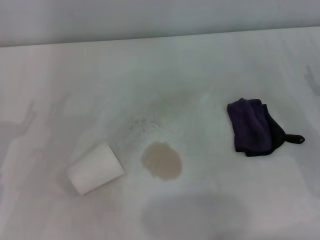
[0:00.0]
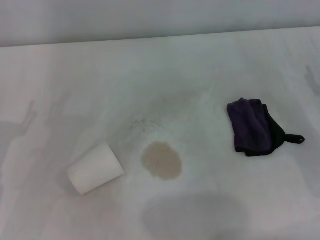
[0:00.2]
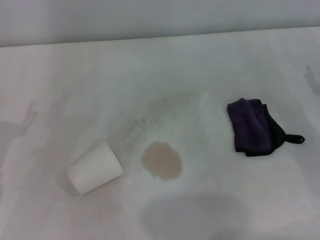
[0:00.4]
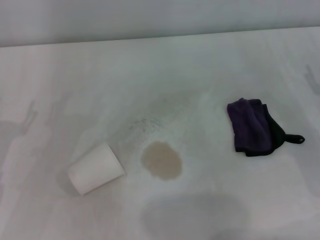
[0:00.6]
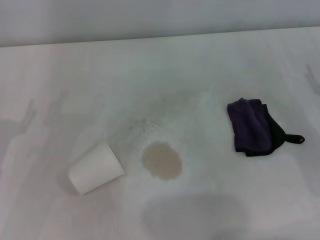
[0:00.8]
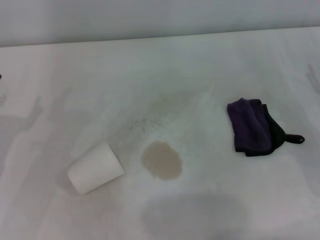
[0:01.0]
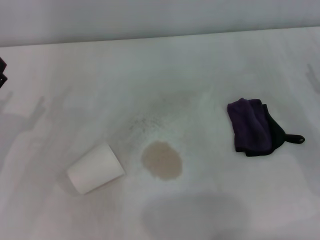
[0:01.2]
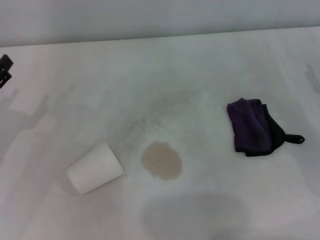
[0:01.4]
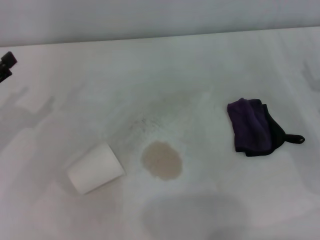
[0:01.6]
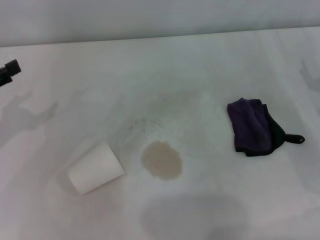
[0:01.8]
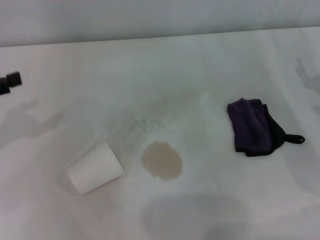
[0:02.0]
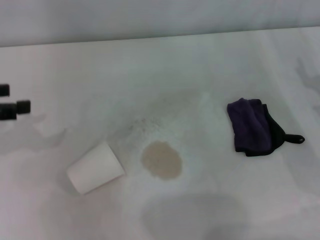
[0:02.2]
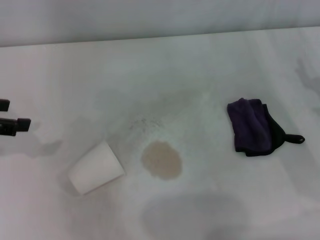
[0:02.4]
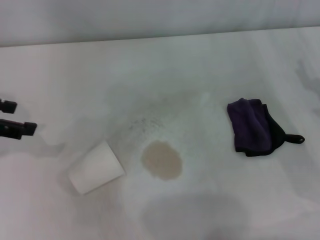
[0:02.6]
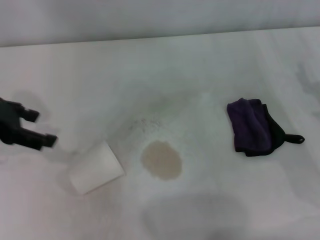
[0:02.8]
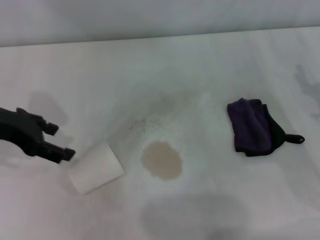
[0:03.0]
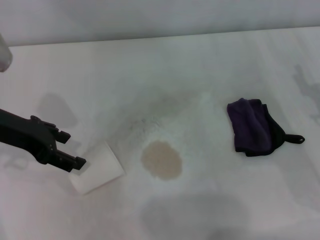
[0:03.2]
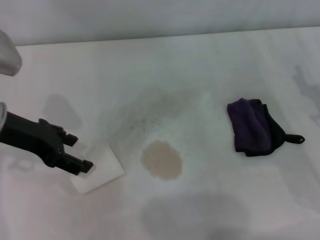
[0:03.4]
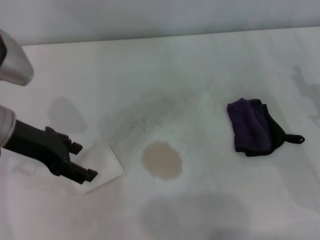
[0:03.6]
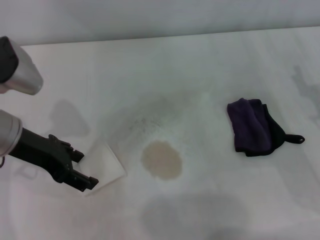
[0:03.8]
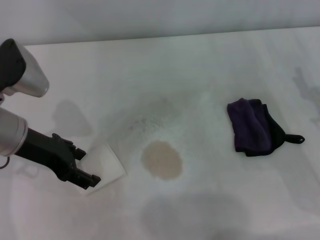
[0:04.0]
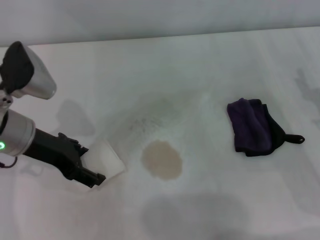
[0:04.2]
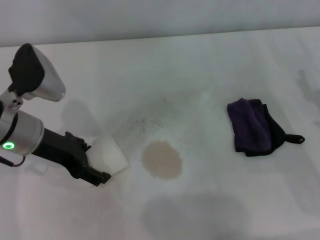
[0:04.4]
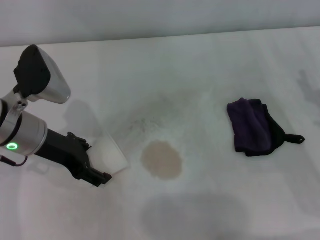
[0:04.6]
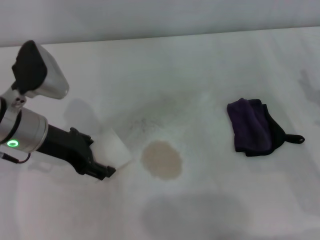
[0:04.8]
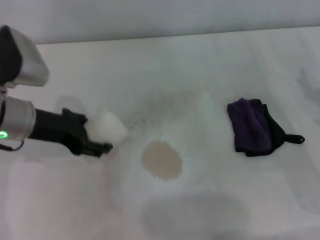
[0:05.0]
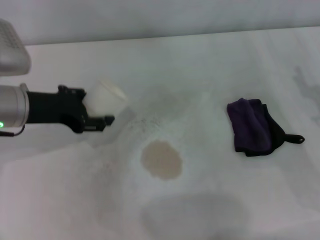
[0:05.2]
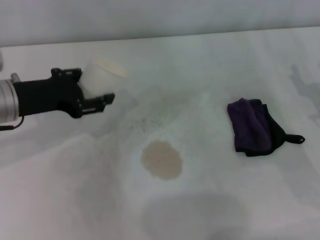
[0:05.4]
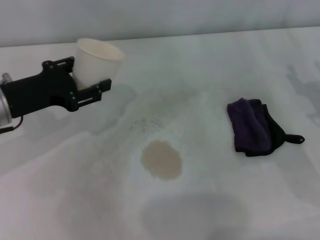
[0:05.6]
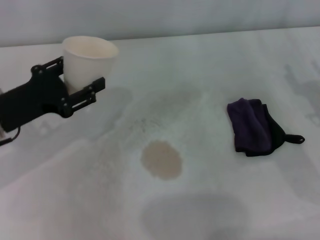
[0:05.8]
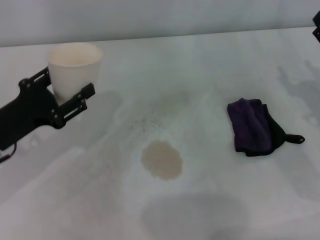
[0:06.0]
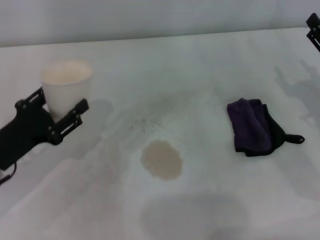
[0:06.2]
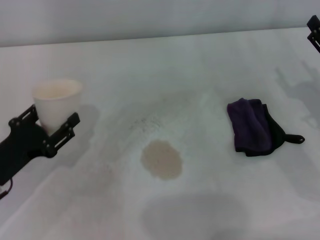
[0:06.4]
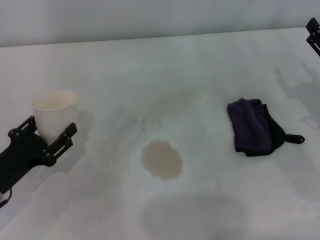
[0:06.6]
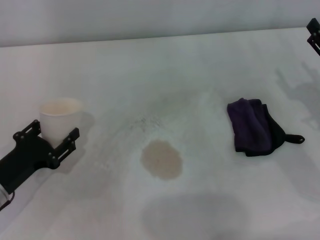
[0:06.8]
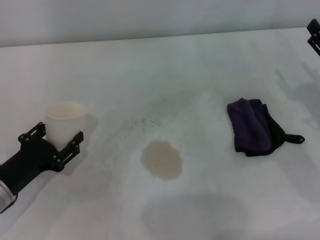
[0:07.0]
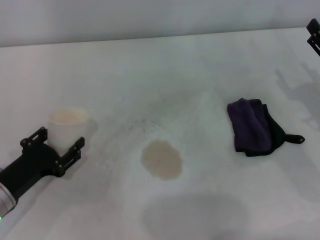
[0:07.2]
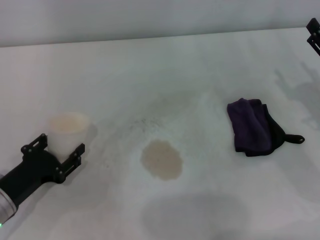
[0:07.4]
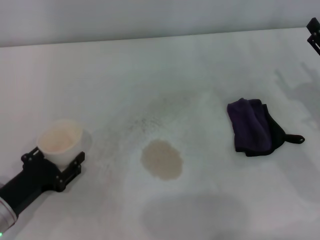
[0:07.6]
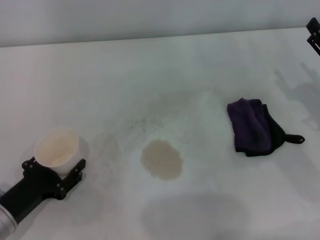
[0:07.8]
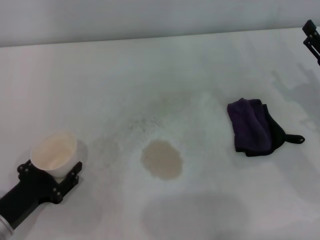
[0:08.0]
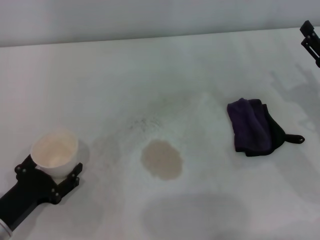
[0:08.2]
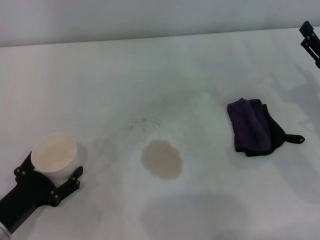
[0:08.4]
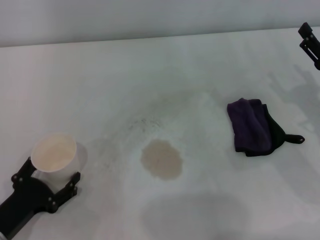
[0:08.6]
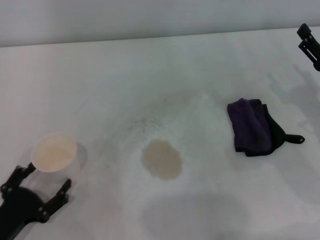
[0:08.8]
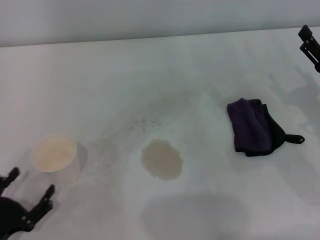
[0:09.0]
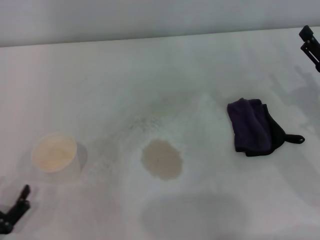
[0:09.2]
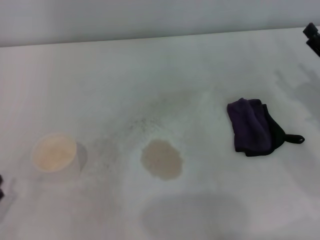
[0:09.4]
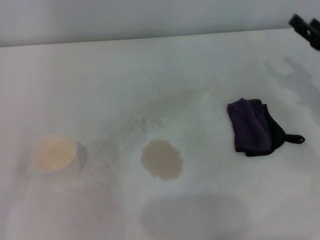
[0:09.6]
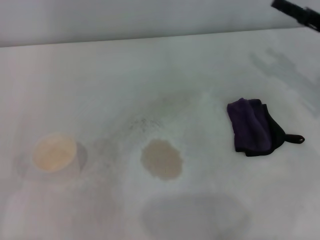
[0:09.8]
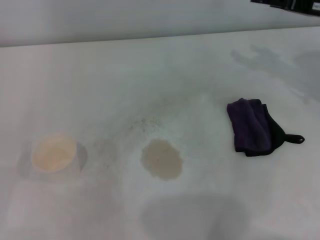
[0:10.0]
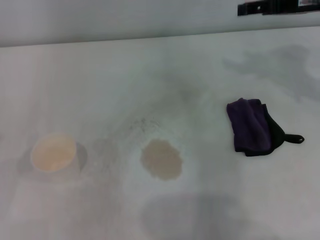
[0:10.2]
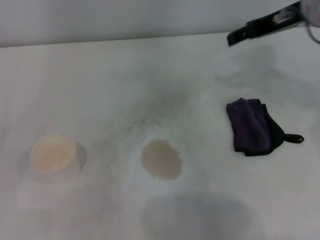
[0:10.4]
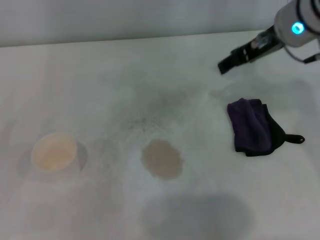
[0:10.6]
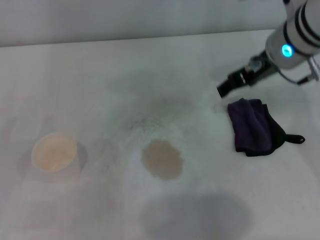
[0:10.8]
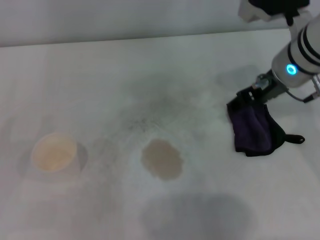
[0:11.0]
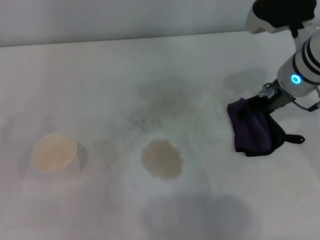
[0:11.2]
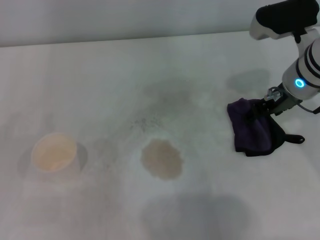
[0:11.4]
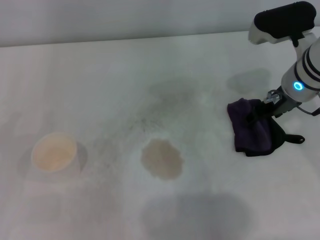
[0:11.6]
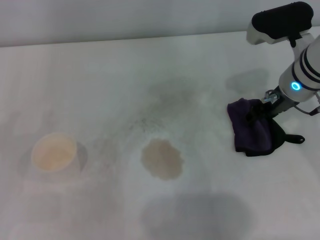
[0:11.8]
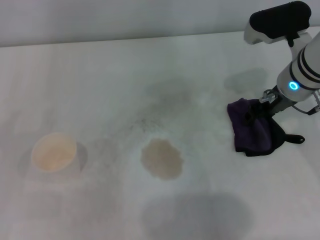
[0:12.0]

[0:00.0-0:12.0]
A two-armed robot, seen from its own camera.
Step, 0.0 to 4.2 s: Grasp the paper cup with the left gripper.
Step, 4.4 to 8.2 s: Stand the paper cup upright with the left gripper.
1.6 to 3.0 s: The left gripper shifts roughly 10 cm upward and to the right.
3.0 to 4.4 s: The left gripper moves downward and to the right, some 10 cm.
4.4 to 6.0 s: The left gripper is displaced to the left and backward by roughly 10 cm, and closes up.
6.0 to 7.6 s: The left gripper shifts about 10 cm downward and backward.
7.6 to 9.0 s: The left gripper shifts some 10 cm backward, and opens up.
9.0 to 10.4 s: The right gripper moves upward, forward and to the left, roughly 25 cm, while the left gripper travels to the left and upward by approximately 10 cm.
10.4 to 12.0 s: The right gripper heads downward, covering some 10 cm.

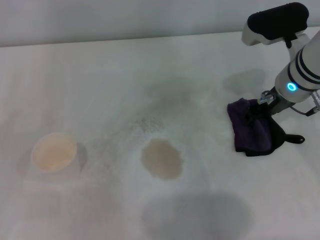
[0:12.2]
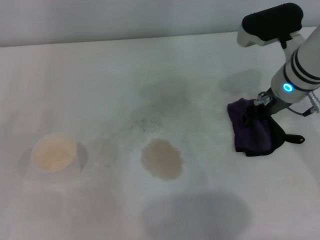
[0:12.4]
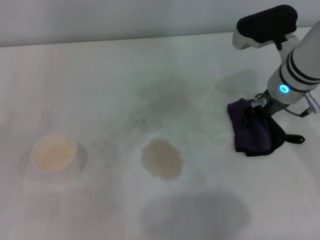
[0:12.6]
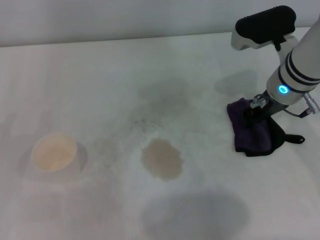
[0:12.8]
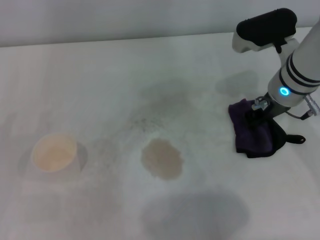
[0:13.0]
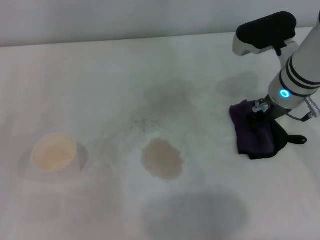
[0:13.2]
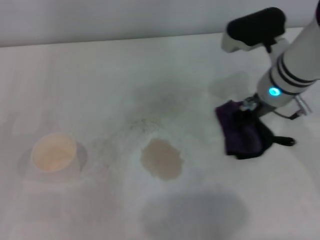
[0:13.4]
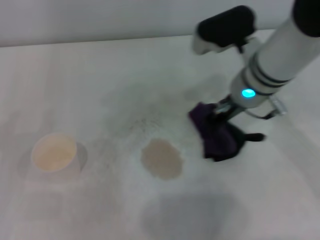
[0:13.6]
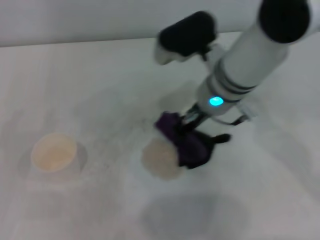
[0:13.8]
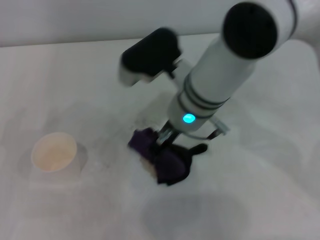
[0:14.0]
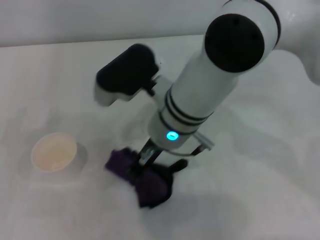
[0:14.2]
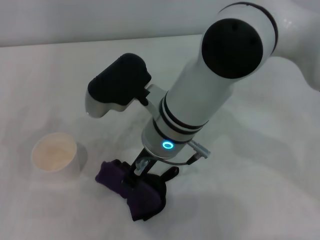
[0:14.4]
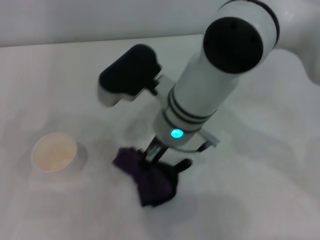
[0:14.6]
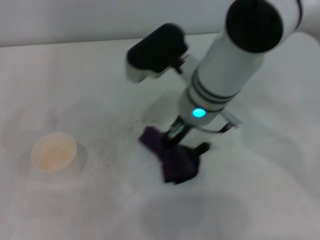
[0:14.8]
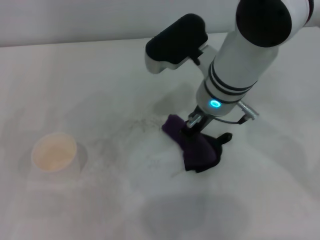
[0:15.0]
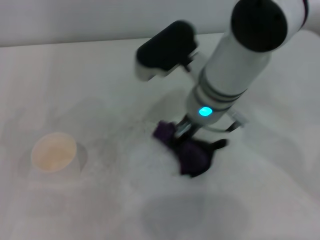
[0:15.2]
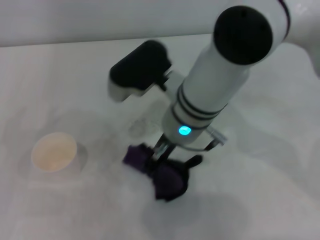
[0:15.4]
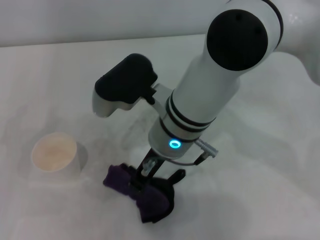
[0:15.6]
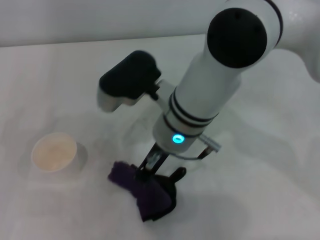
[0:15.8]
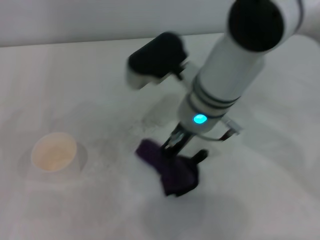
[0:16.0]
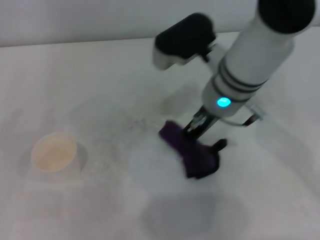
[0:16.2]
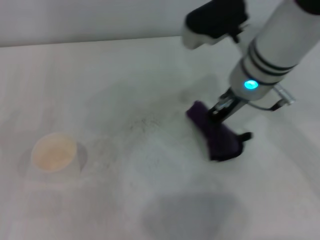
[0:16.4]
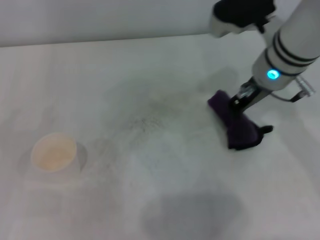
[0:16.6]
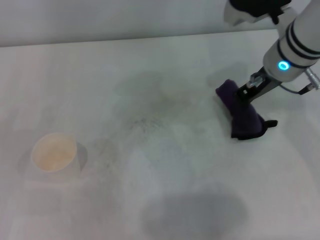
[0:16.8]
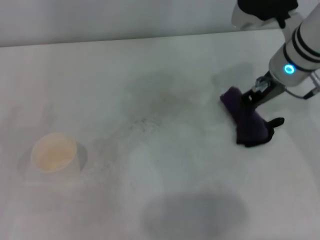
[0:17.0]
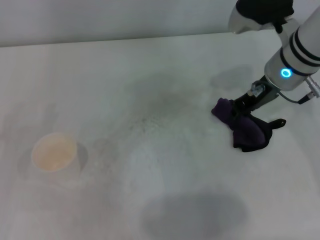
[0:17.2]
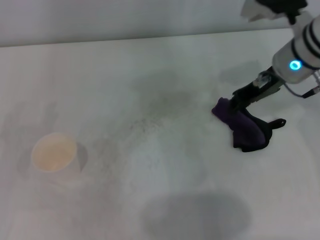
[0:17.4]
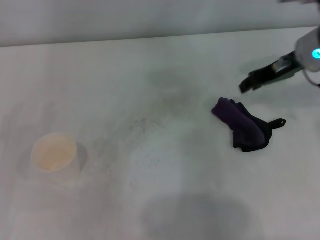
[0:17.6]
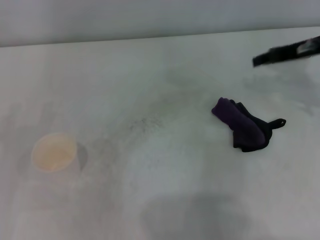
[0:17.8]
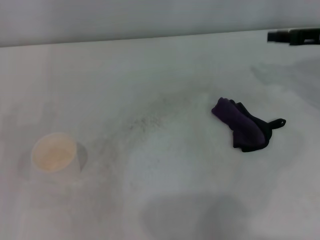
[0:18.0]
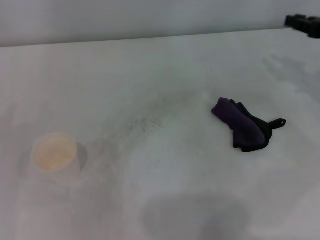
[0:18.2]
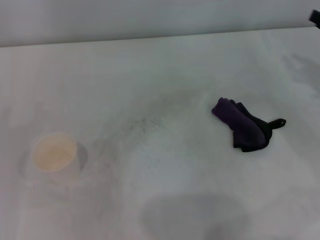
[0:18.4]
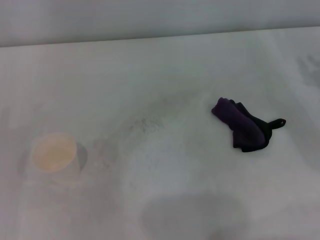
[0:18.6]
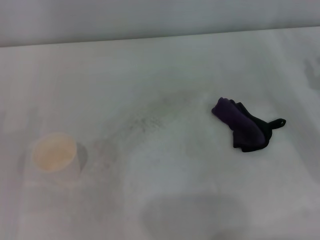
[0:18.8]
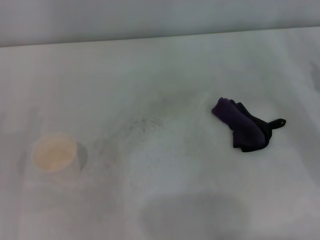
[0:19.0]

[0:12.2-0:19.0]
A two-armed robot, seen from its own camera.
Step, 12.8 to 16.0 s: Wipe the stains off the table with the right gripper.
Step, 16.4 to 17.2 s: Place the rag on the table with the right gripper.
12.2 to 13.6 s: The right gripper is displaced to the left by approximately 5 cm, and closes.
13.6 to 15.0 s: The right gripper shifts about 5 cm to the left.
16.2 to 17.6 s: The right gripper travels to the right by some 15 cm.
17.6 to 19.0 s: The right gripper goes about 20 cm to the right, backward and downward.

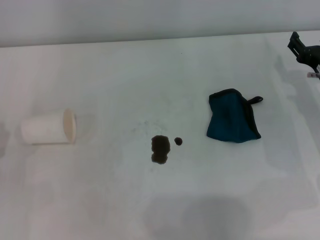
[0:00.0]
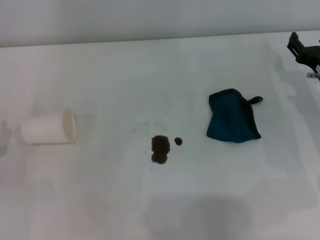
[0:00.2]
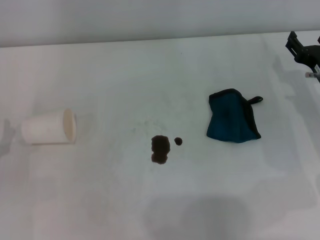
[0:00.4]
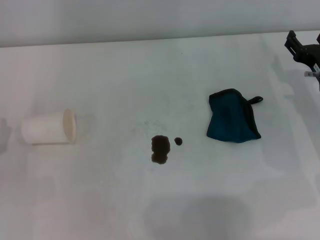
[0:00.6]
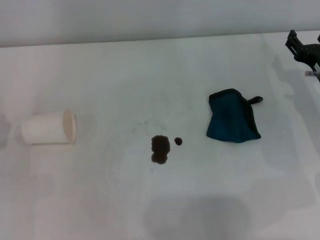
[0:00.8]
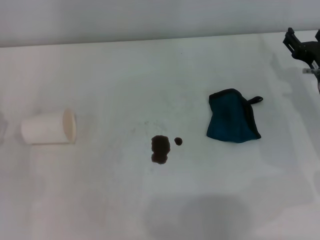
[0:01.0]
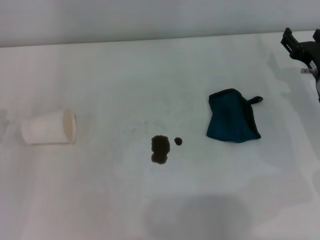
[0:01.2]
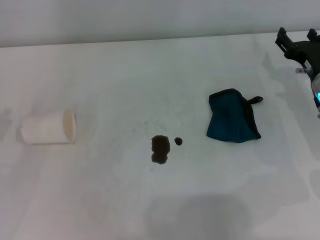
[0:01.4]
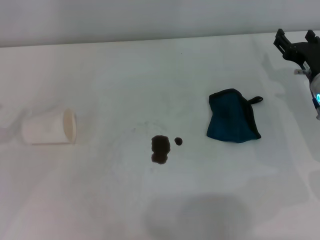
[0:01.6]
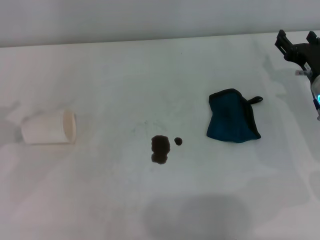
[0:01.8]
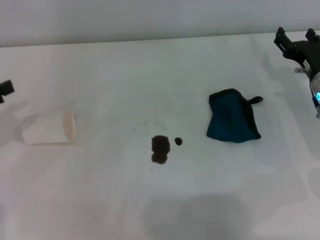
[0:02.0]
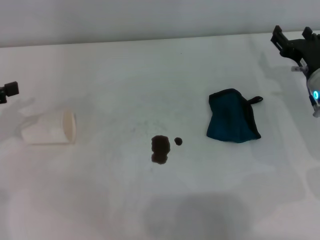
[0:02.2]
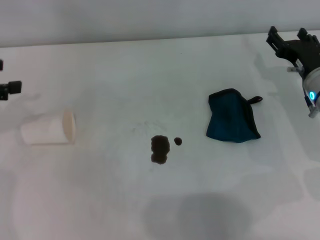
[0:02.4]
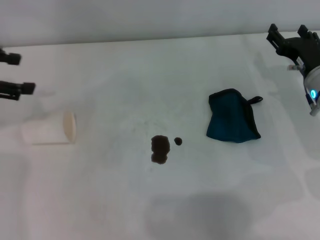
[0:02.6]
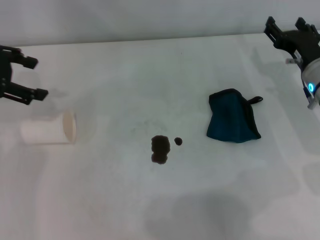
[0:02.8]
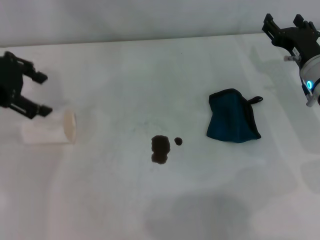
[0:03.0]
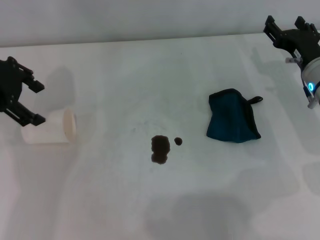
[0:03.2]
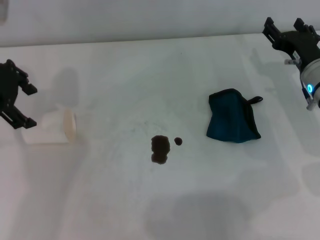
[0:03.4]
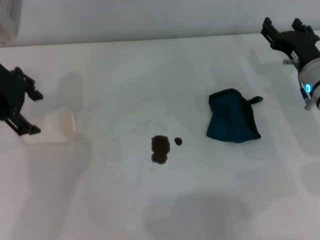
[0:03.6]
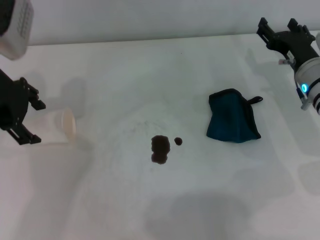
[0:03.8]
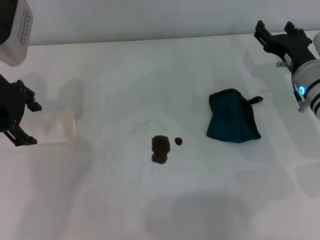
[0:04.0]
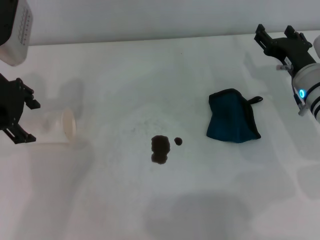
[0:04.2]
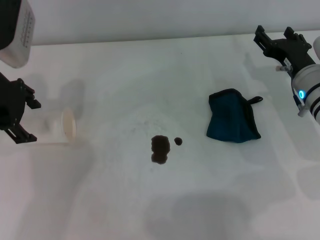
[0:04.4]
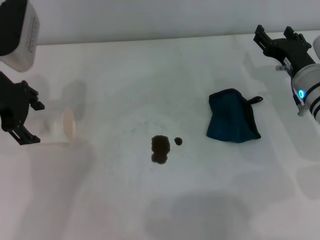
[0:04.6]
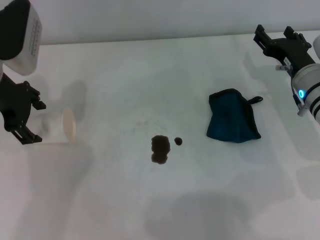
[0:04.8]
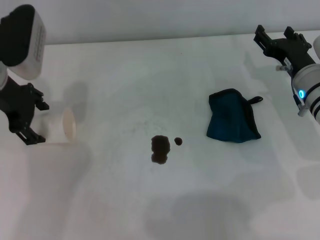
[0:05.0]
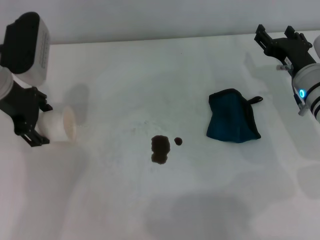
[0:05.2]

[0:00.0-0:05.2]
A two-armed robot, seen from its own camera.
1.8 to 3.4 s: The left gripper moves forward, to the right and upward, some 20 cm.
3.4 to 5.2 s: The left gripper travels downward by roughly 10 cm.
